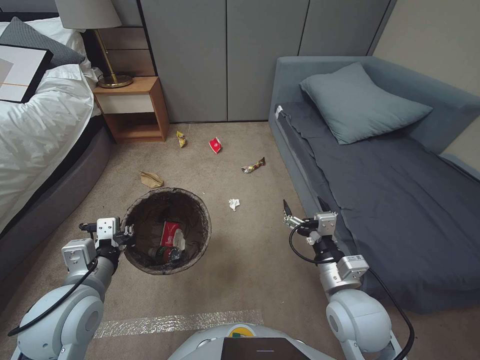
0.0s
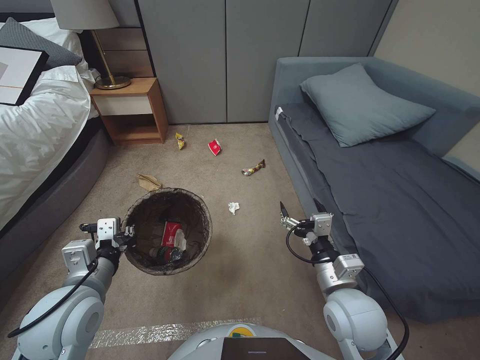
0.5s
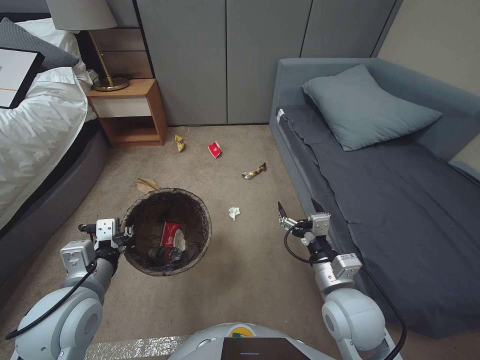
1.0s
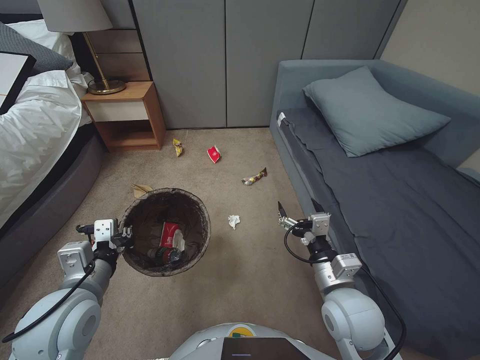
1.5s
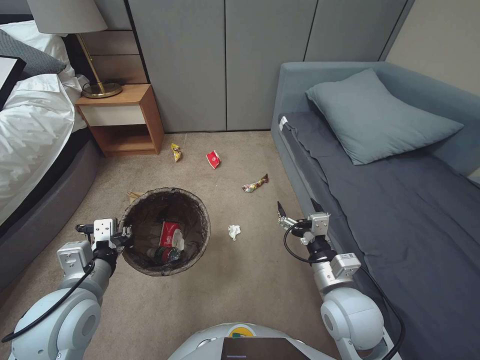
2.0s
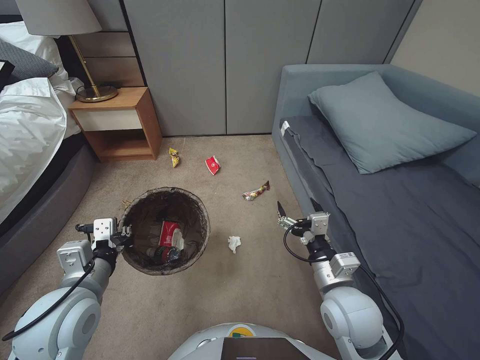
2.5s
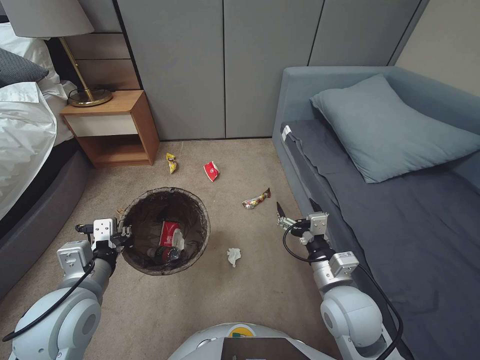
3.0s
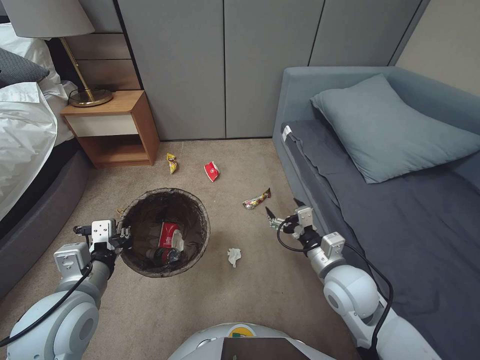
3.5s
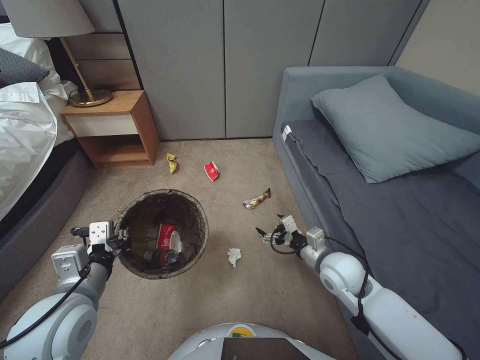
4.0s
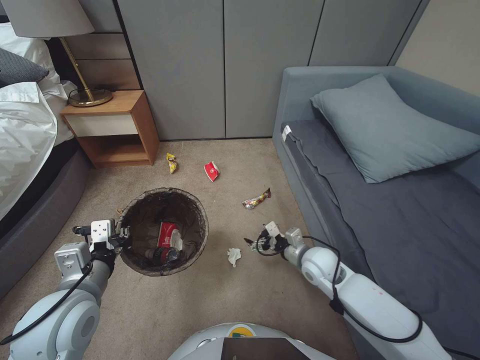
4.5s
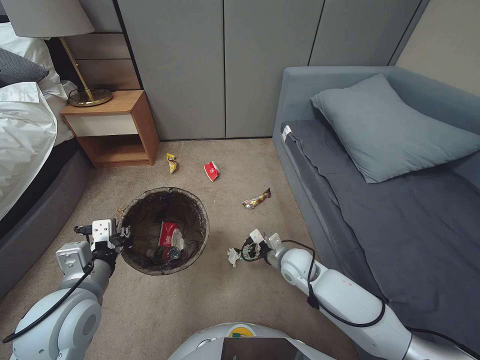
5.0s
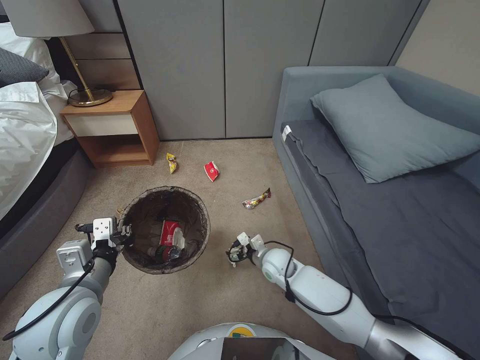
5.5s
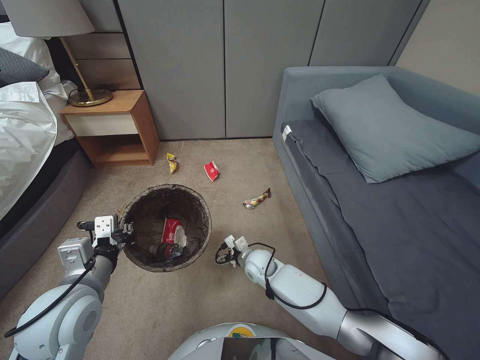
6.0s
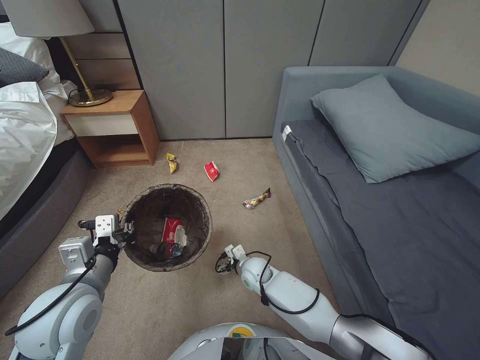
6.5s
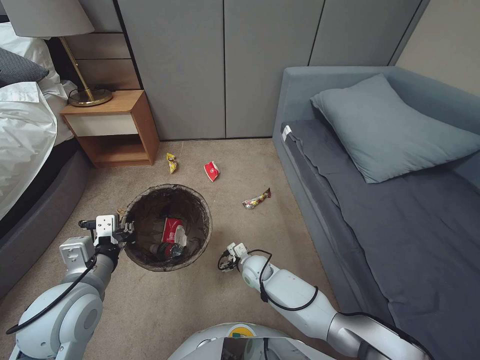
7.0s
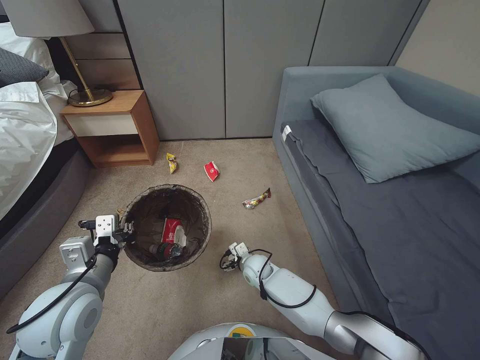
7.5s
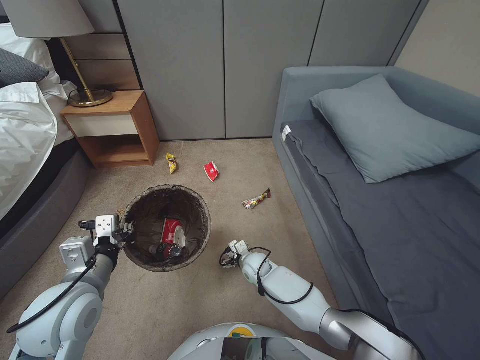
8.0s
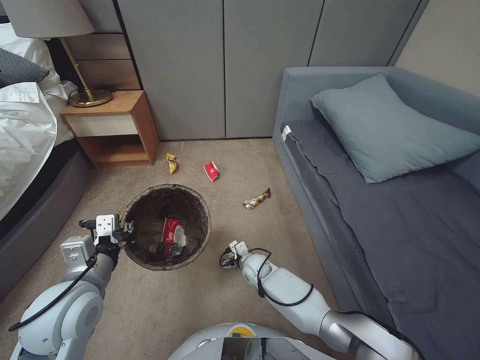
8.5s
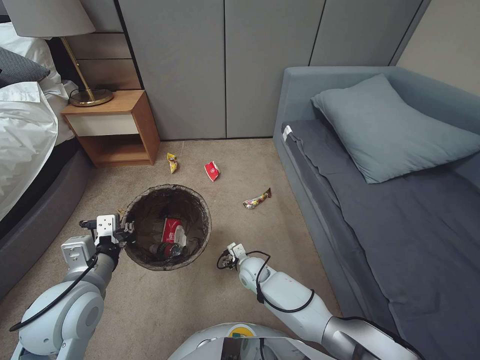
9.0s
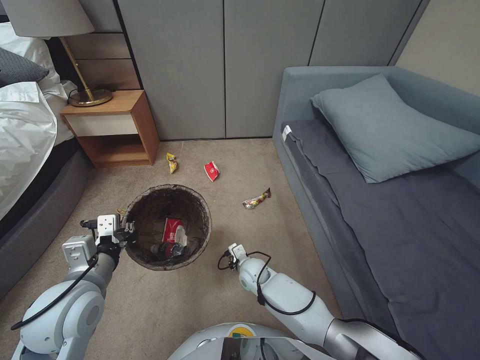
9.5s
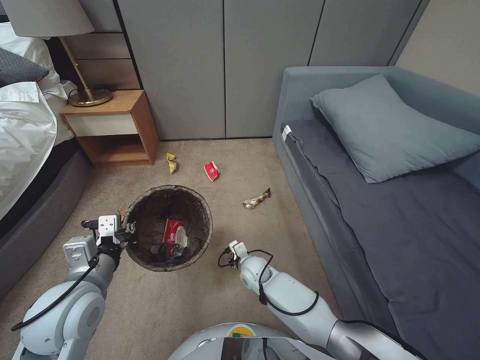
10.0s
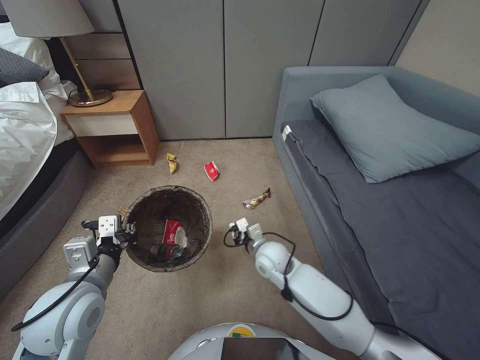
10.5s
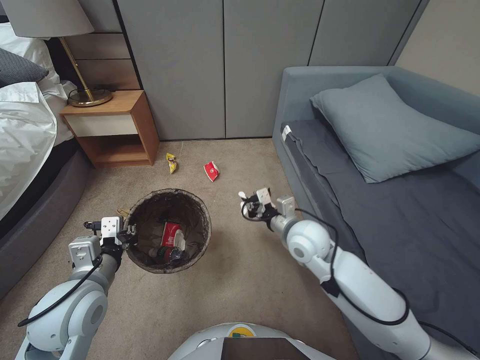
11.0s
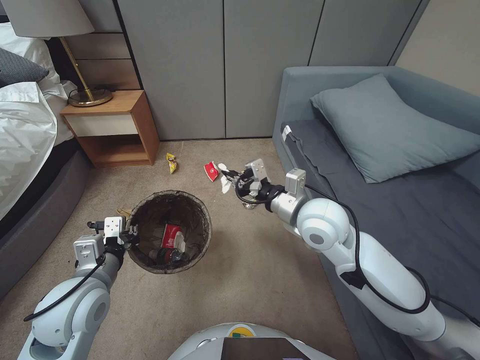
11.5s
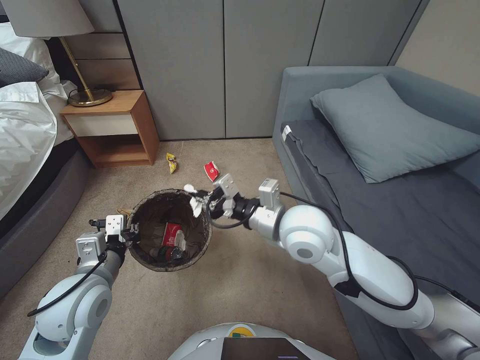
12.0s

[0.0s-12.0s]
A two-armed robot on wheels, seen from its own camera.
Task of the whole recording: Pick up the trash bin, then pick up the garbage from the floor and place it into the trash bin.
2.0s to 4.0s: The right gripper shifts roughly 10 cm forward.
4.0s to 6.0s: The right gripper goes some 25 cm to the left, downward and forward.
6.0s to 8.0s: The right gripper goes some 5 cm downward.
8.0s to 10.0s: The right gripper closes.
10.0s to 12.0s: The right gripper shifts about 35 cm upward.

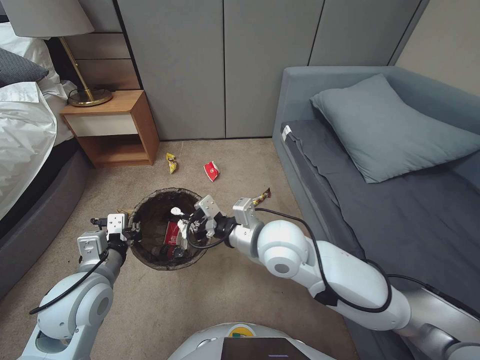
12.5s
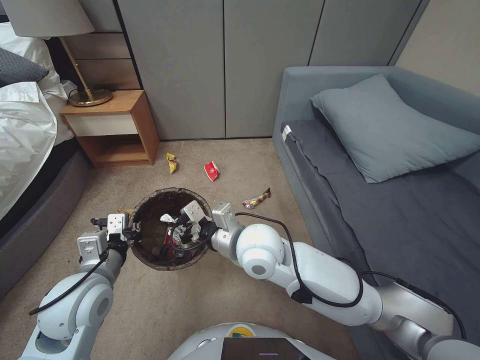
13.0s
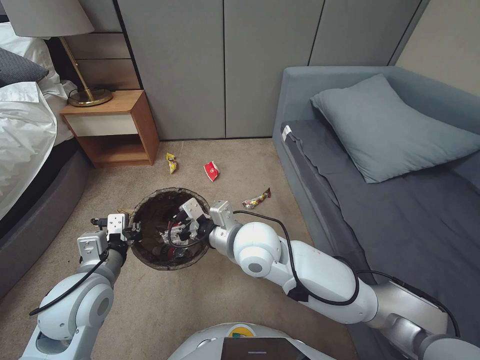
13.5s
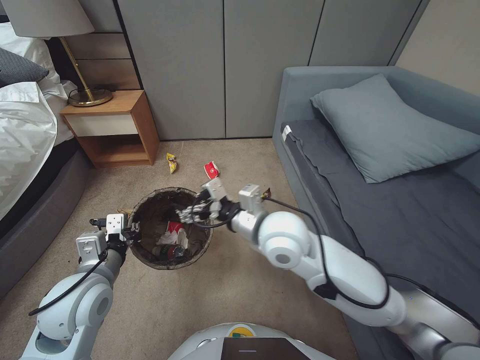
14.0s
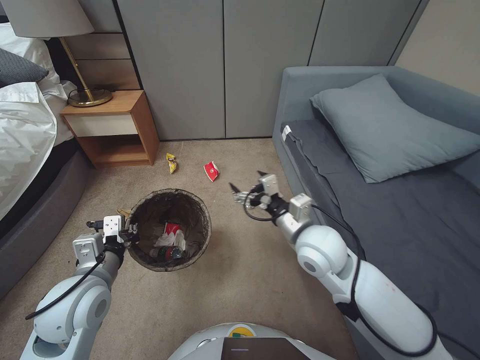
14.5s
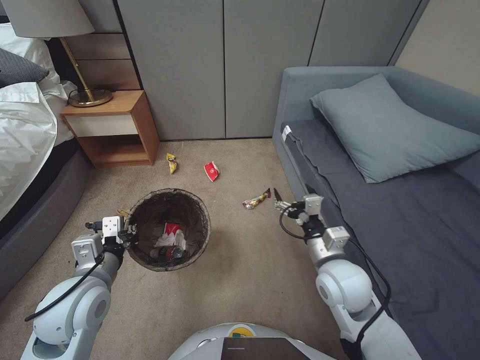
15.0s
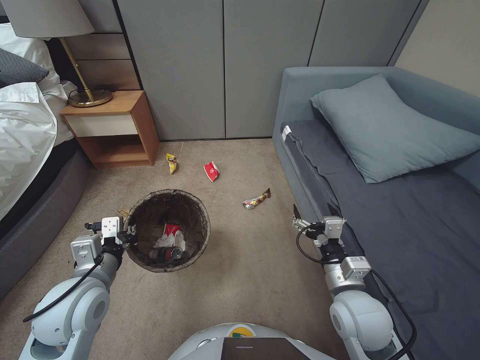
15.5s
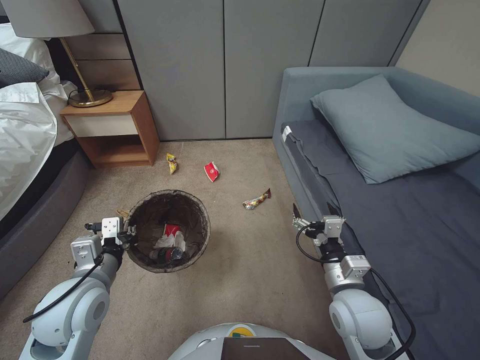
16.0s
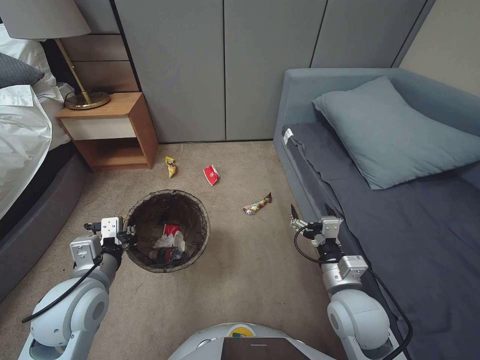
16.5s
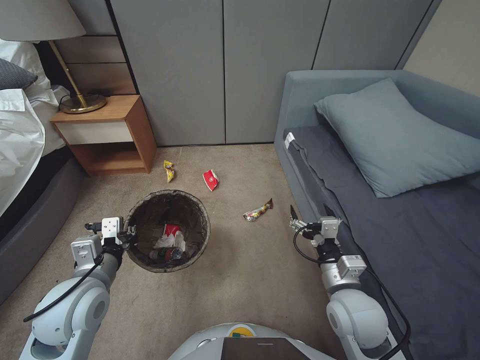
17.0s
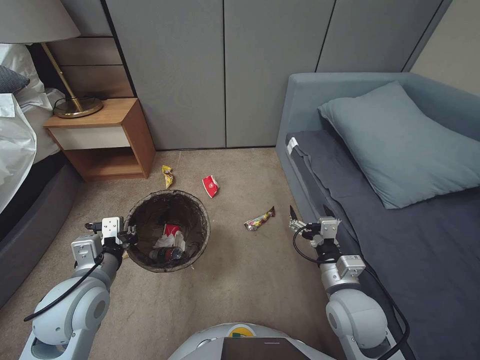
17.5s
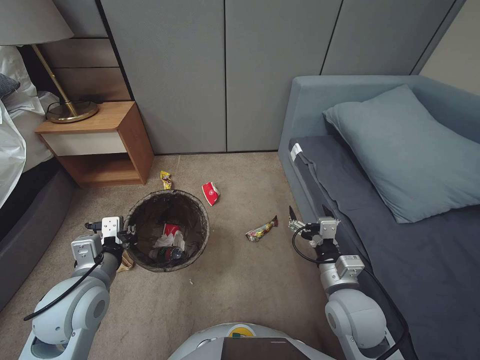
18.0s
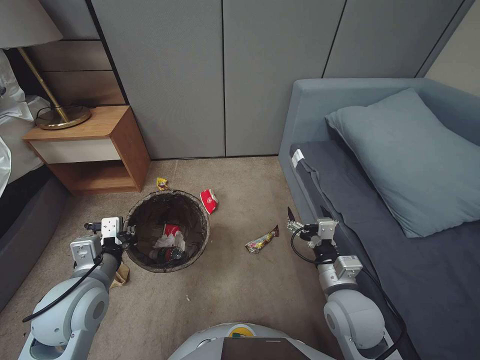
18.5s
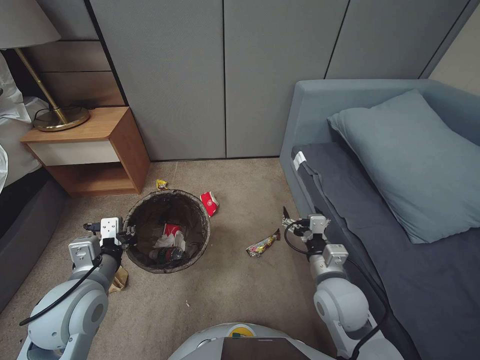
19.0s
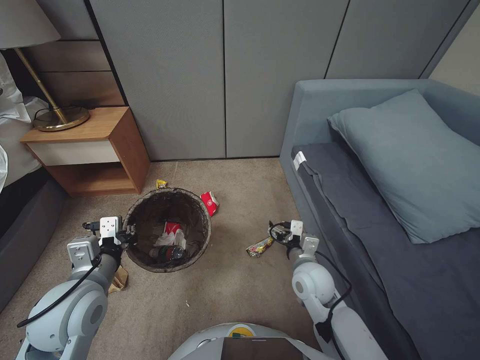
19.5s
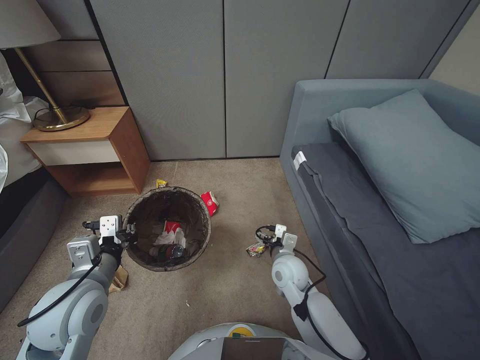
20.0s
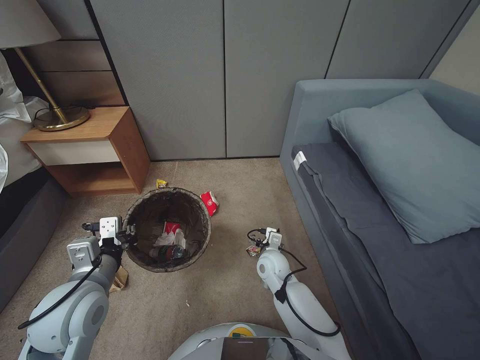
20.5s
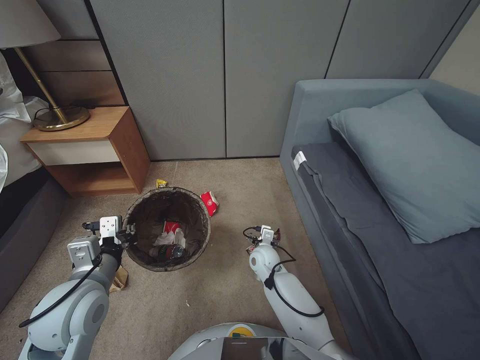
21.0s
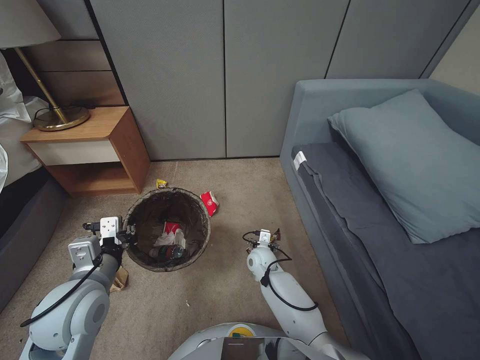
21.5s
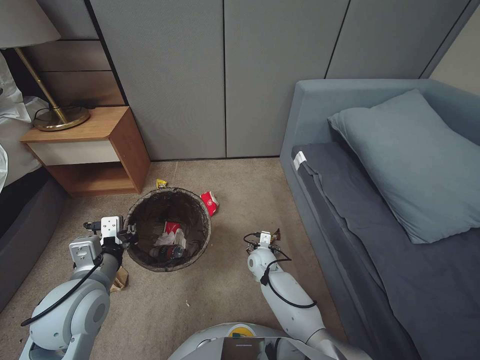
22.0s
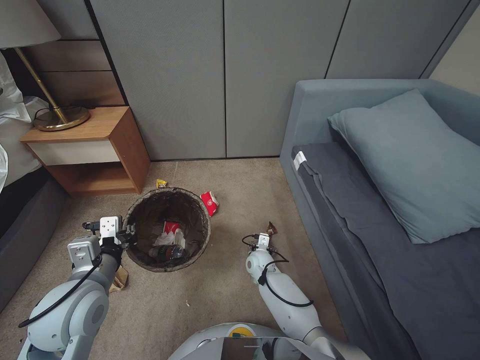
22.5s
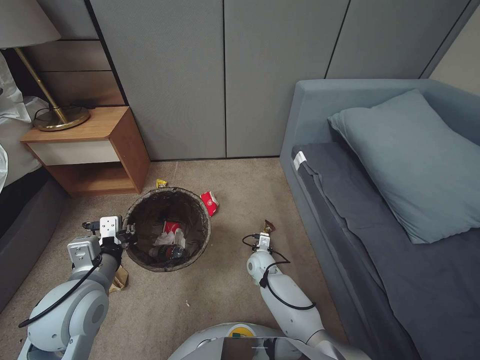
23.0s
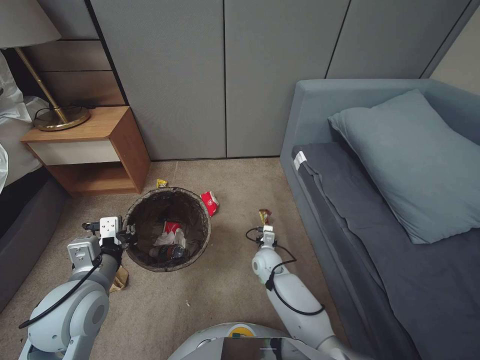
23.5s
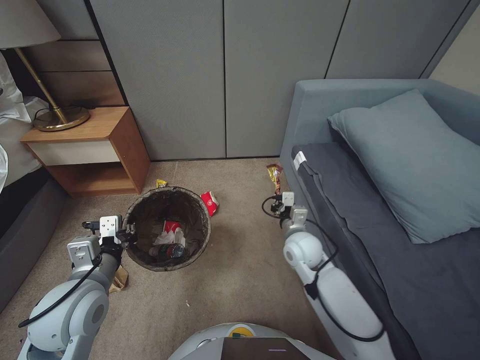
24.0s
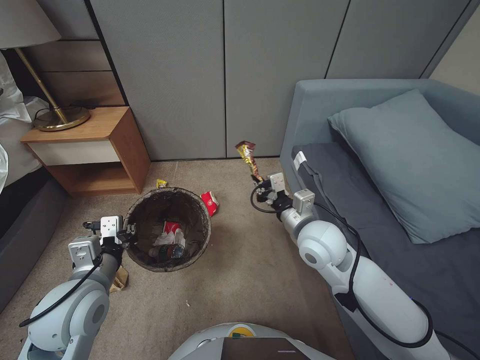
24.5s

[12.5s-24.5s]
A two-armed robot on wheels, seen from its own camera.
Task of the whole recording: Pick up the trash bin, then pick up the garbage from the floor and place it into the trash bin.
12.5s to 14.5s: The right gripper is displaced to the right by approximately 5 cm, and opens its fingers.
14.5s to 16.5s: The right gripper shifts approximately 15 cm backward, downward and to the right.
18.5s to 20.5s: The right gripper is displaced forward, downward and to the left by approximately 20 cm.
20.5s to 22.5s: The right gripper shifts about 10 cm downward.
22.5s to 24.5s: The right gripper goes approximately 30 cm upward, and closes up.

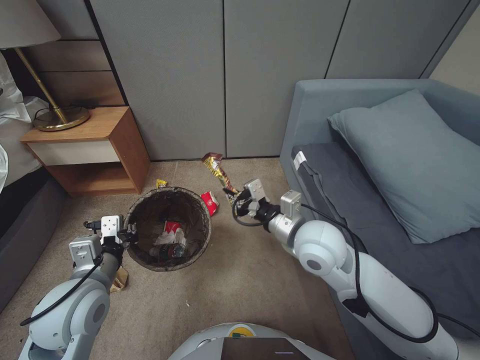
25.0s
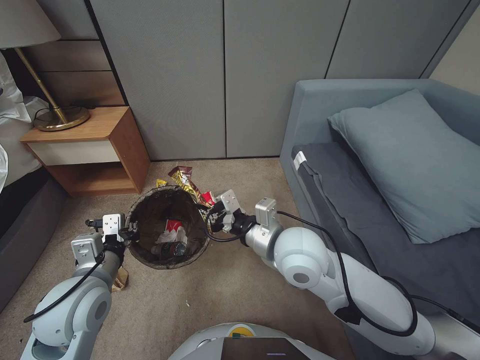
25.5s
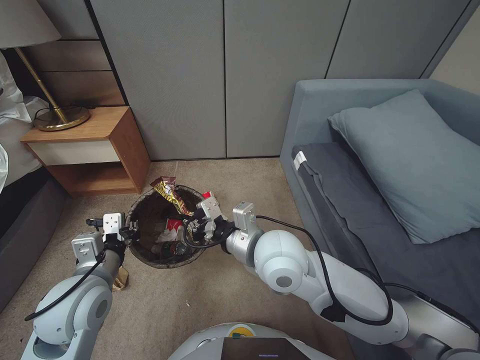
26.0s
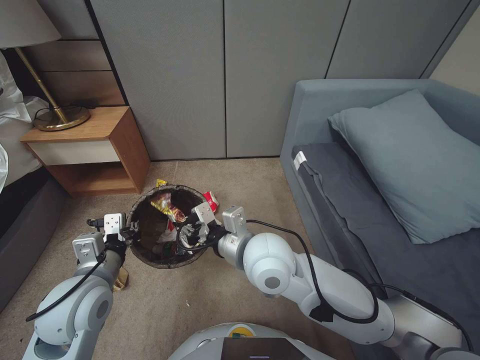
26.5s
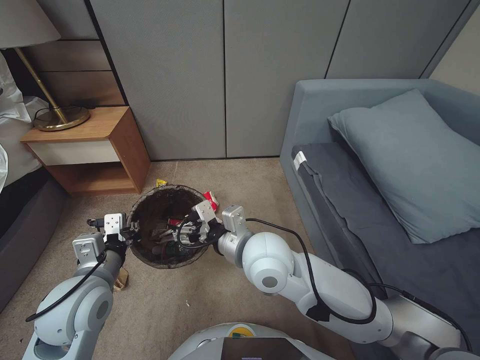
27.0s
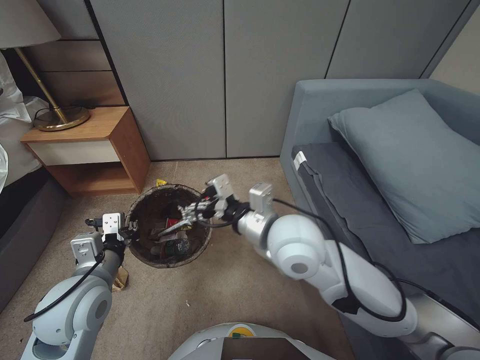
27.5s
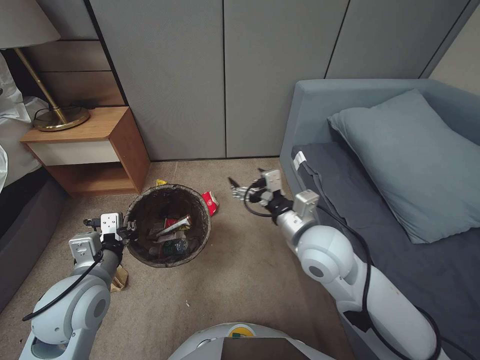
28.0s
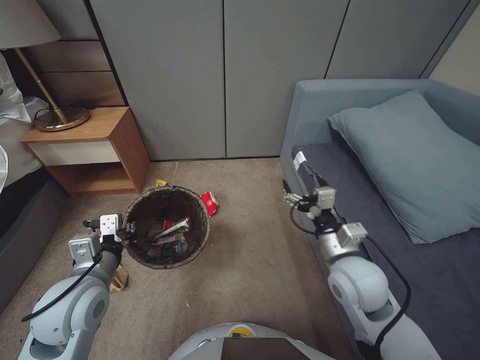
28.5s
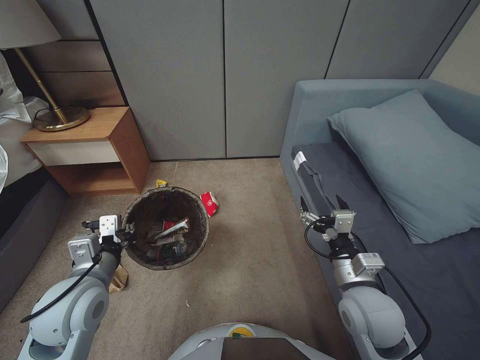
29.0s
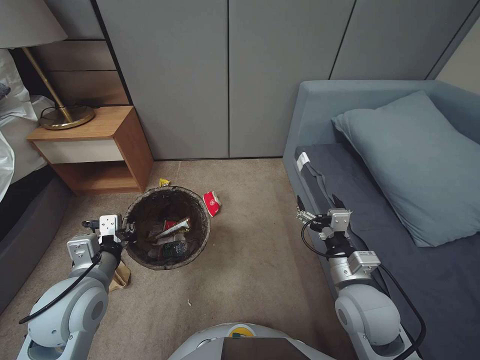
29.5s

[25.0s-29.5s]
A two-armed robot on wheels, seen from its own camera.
Task of the whole recording: Pick up the trash bin, then pick up the garbage from the floor and place it into the trash bin.
25.0s to 27.0s: The right gripper moves to the left, roughly 10 cm, and opens.
27.0s to 29.5s: The right gripper is displaced to the right and downward by about 20 cm.
